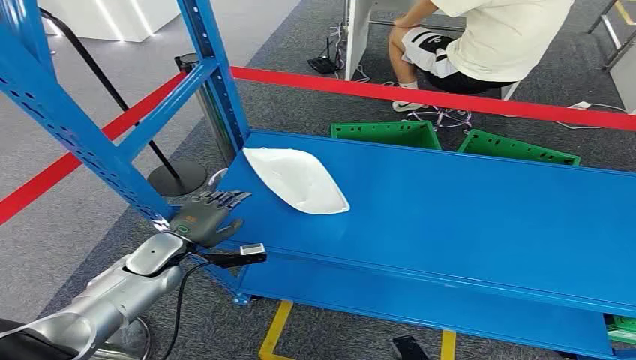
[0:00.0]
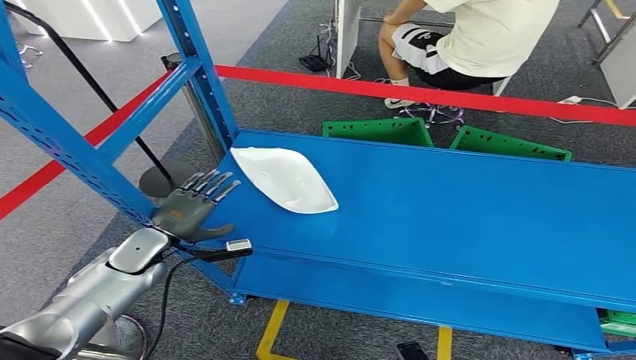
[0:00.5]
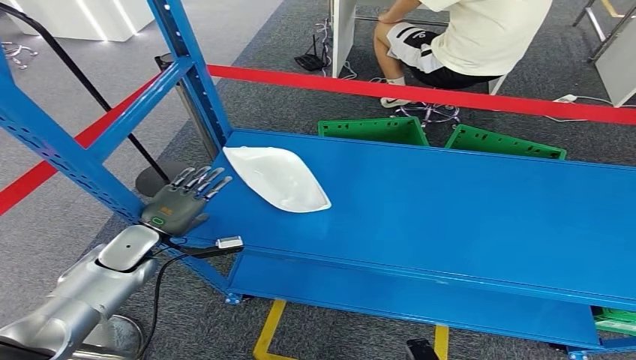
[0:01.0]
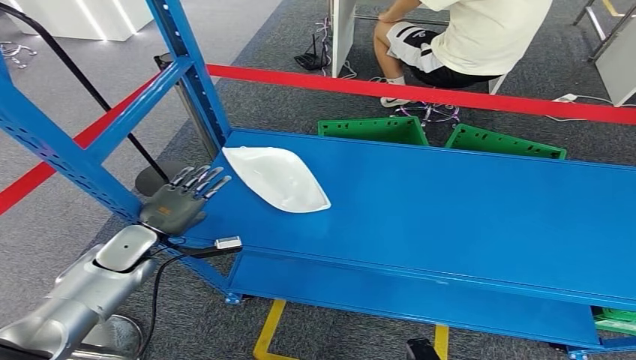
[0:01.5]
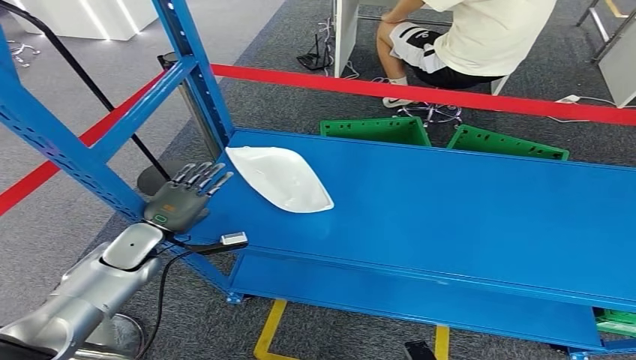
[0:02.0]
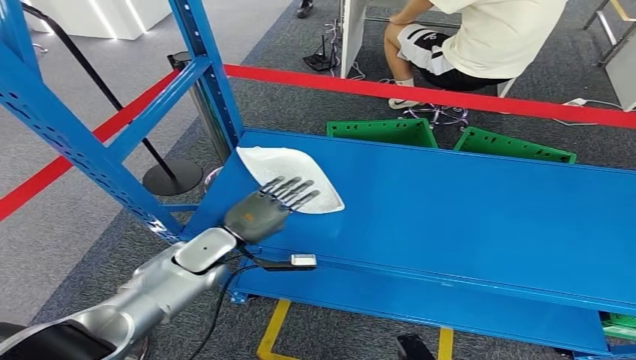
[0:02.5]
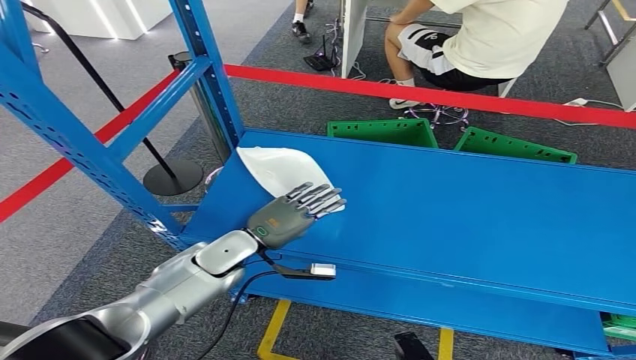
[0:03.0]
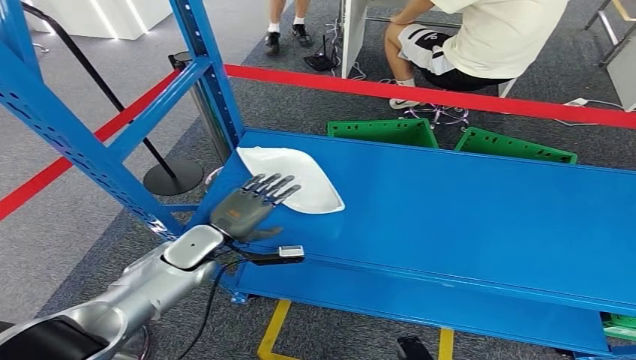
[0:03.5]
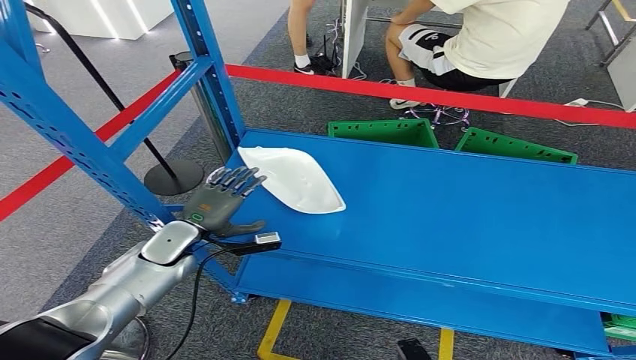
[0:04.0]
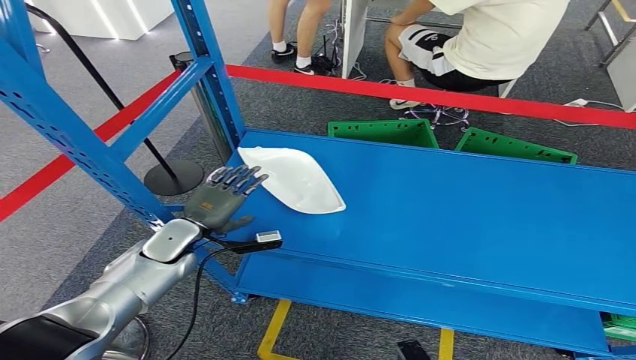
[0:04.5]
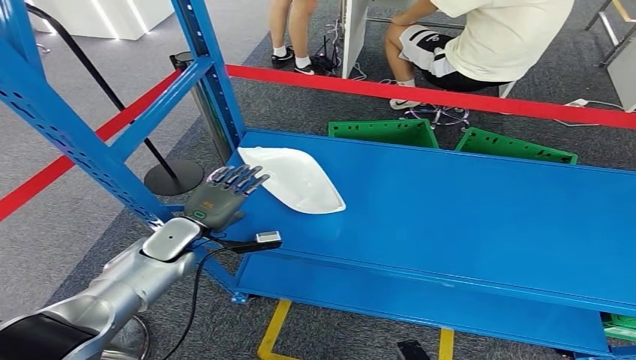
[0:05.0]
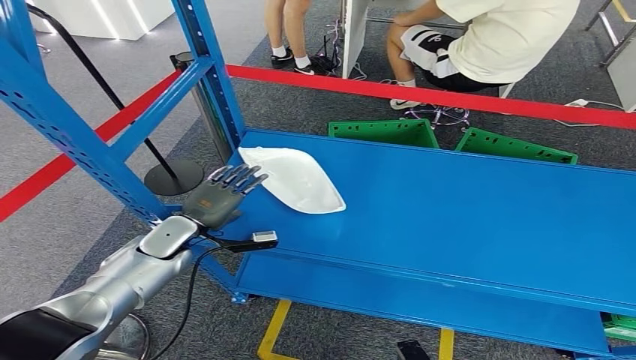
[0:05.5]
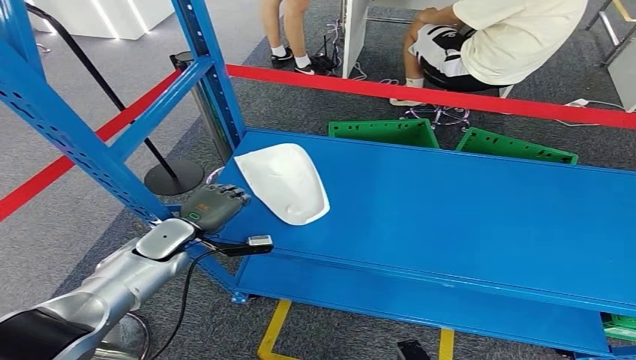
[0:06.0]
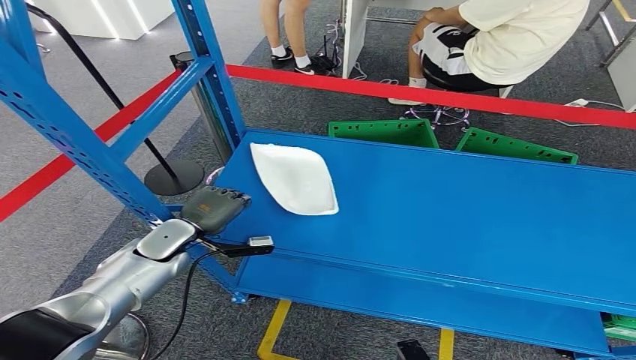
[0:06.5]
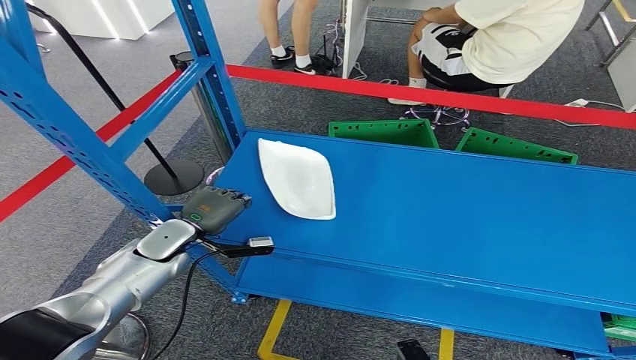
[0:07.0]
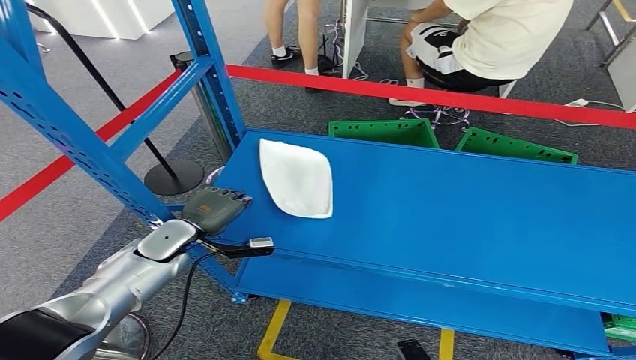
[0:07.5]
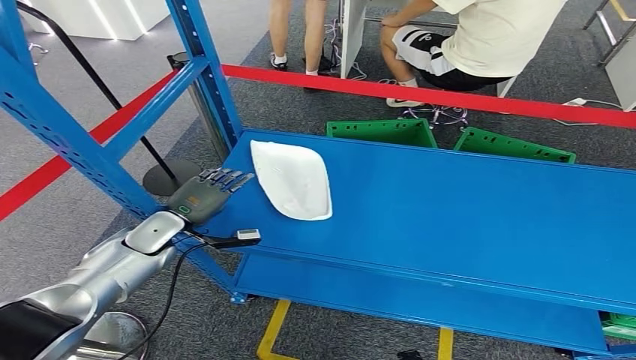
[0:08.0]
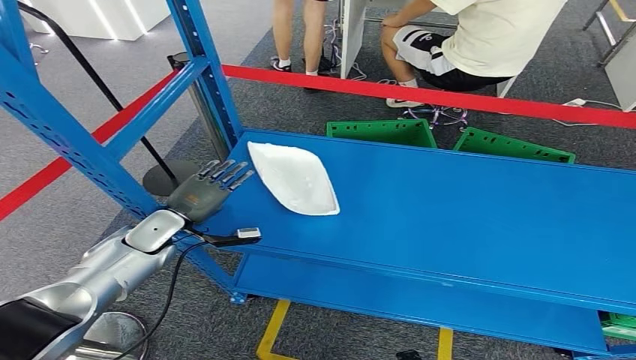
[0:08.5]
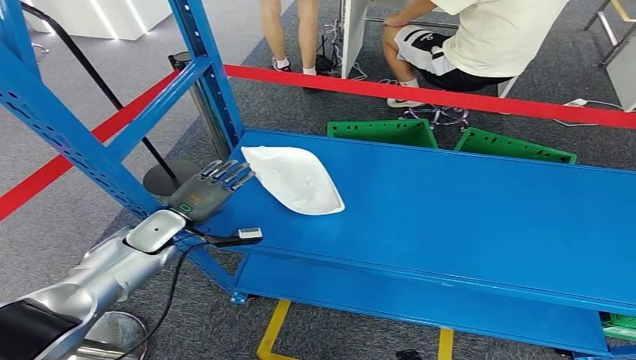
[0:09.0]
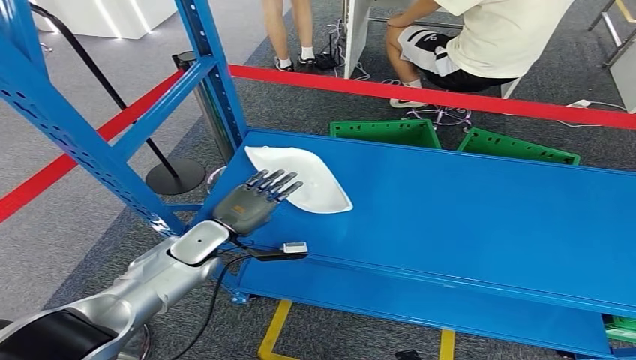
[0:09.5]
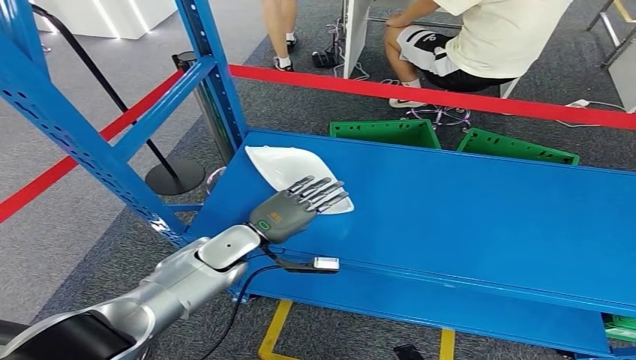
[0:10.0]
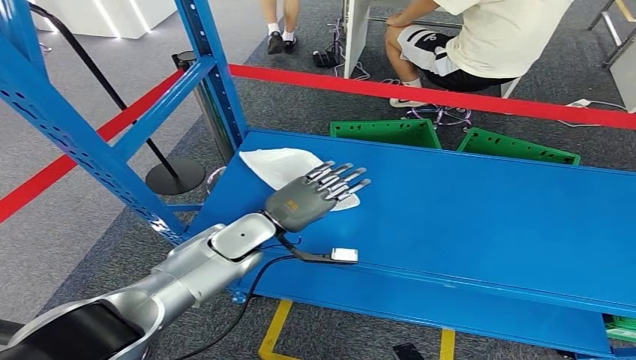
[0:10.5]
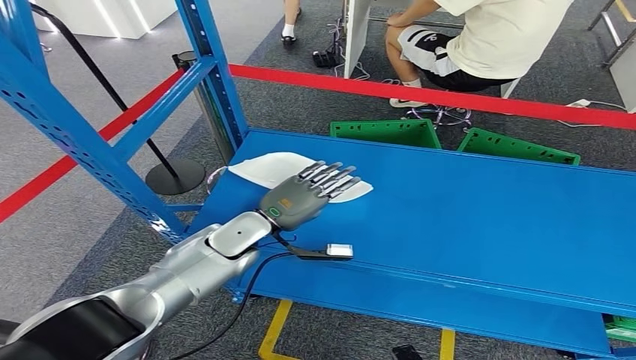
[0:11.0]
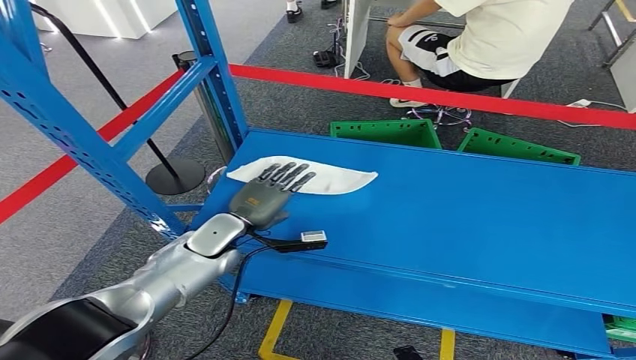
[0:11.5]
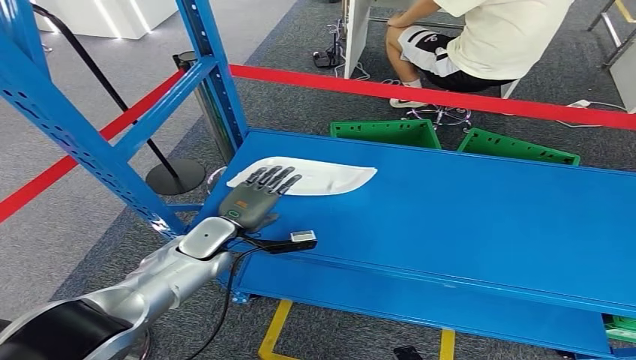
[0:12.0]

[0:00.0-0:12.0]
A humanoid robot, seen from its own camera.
0:04.0 to 0:08.0: The hands stay close to where they were, moving slightly.
0:10.0 to 0:12.0: The left hand shifts by roughly 5 cm.

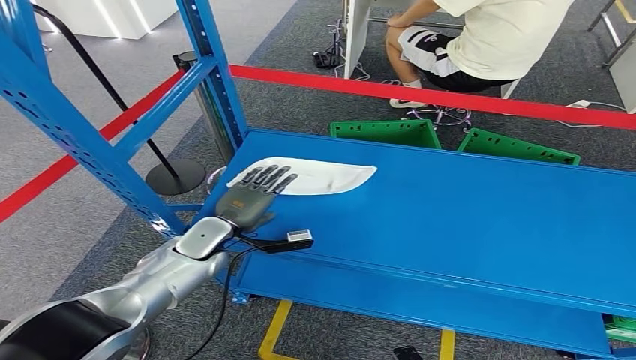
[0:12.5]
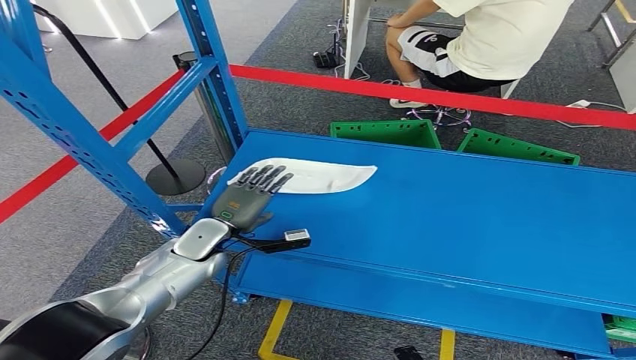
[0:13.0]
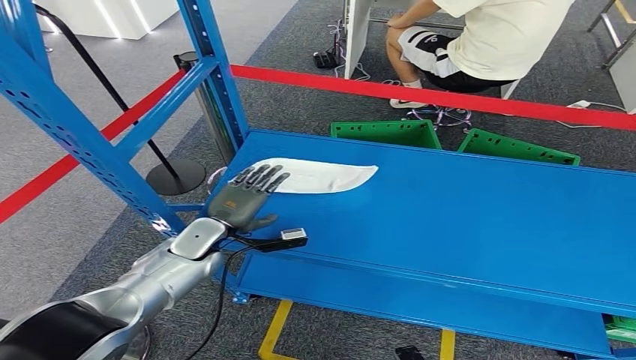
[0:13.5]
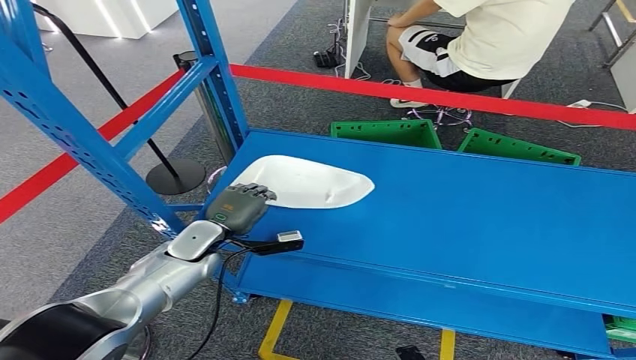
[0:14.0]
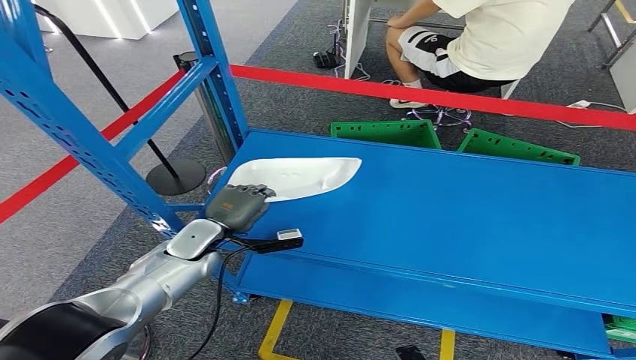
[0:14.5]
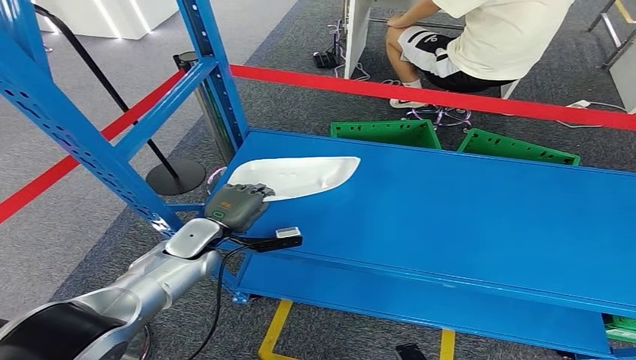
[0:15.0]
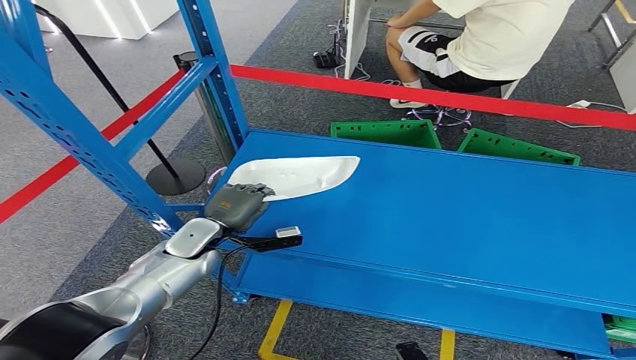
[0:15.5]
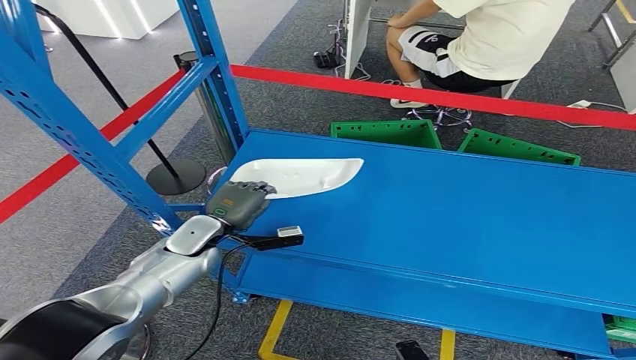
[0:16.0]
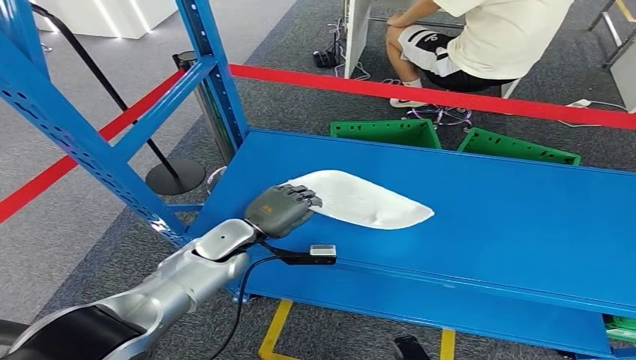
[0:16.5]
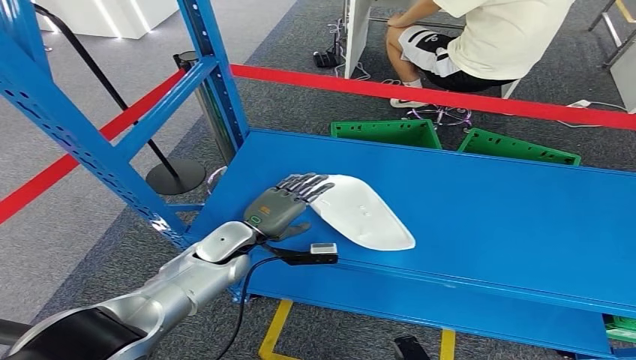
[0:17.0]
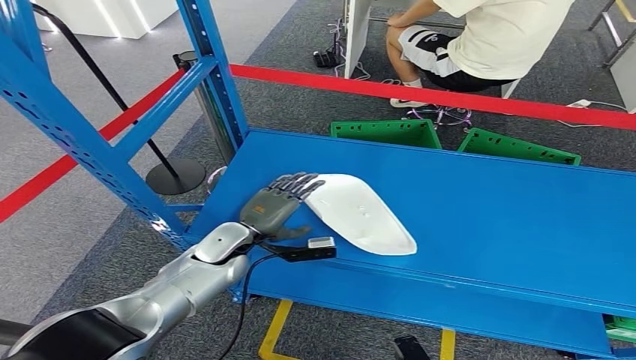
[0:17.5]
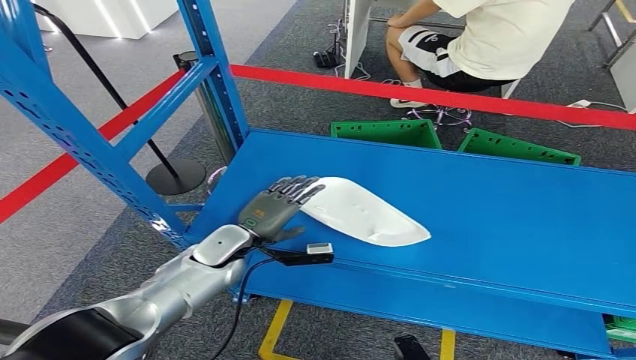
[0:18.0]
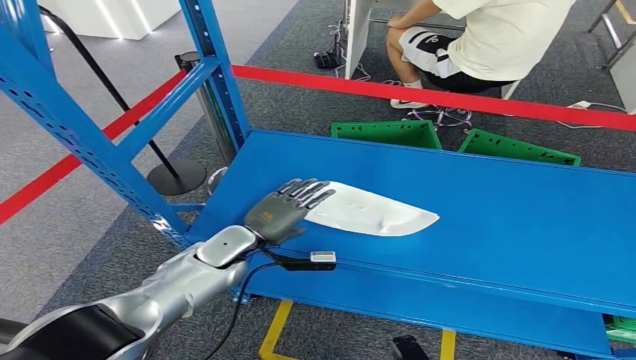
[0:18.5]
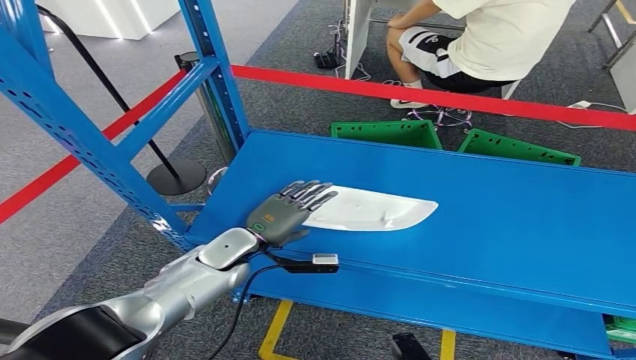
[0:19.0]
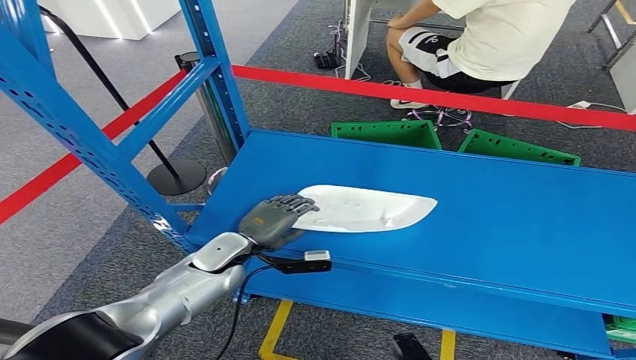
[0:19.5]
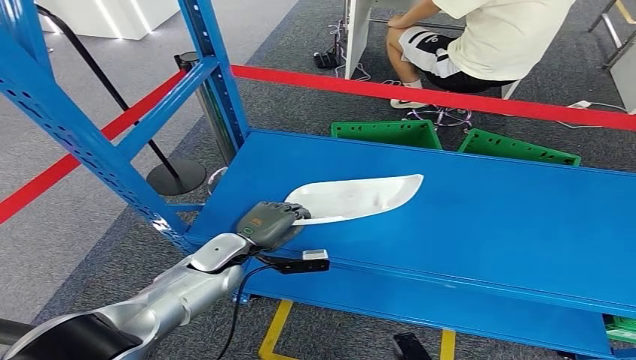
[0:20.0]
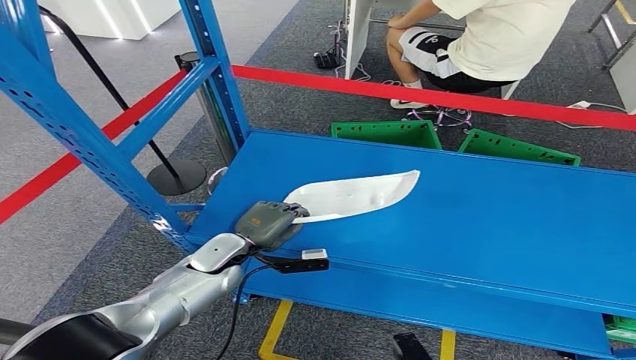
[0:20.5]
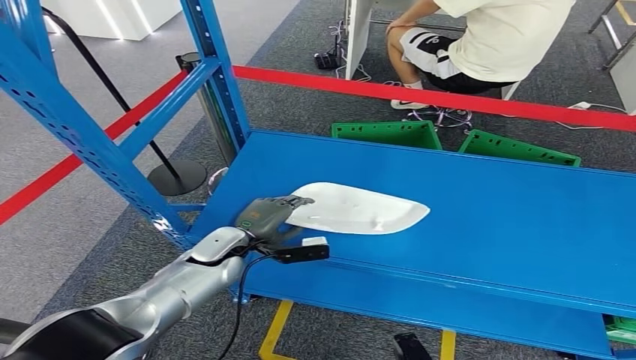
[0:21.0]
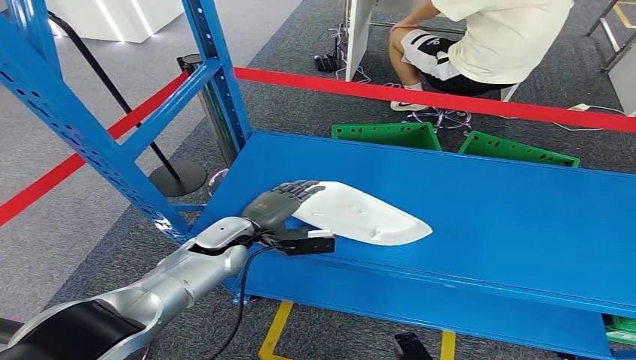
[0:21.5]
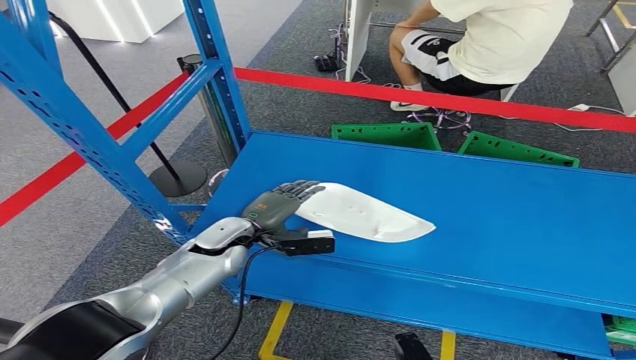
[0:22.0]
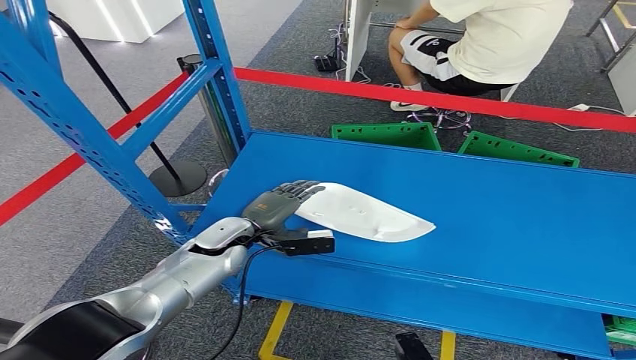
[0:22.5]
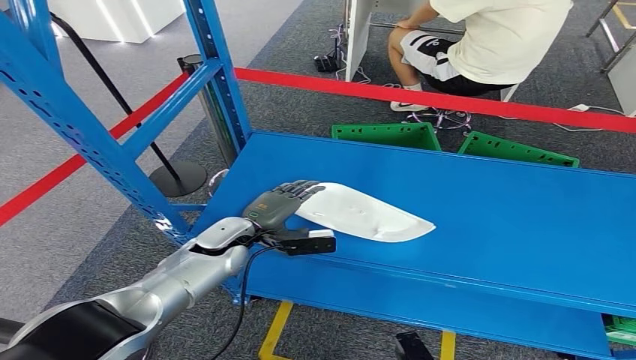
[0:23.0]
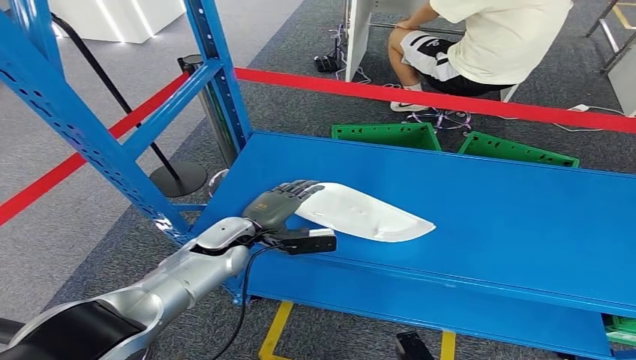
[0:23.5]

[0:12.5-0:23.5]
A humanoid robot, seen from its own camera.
0:12.5 to 0:14.5: The hands move only a little.
0:14.5 to 0:16.0: Neither hand changes place.
0:16.0 to 0:18.0: The left hand is displaced to the right by approximately 5 cm.
0:18.0 to 0:20.0: The hands make only small movements.
0:20.0 to 0:21.5: The hands move only a little.
0:21.5 to 0:23.5: Both hands stay about where they are.
